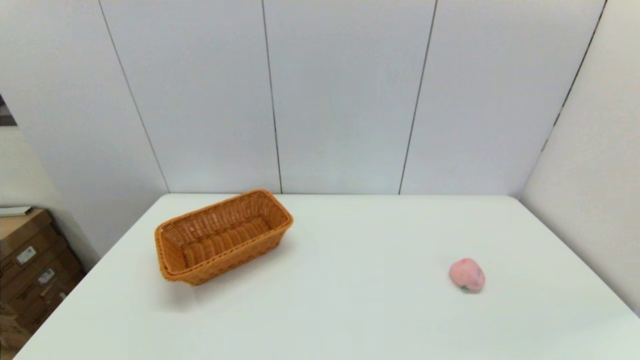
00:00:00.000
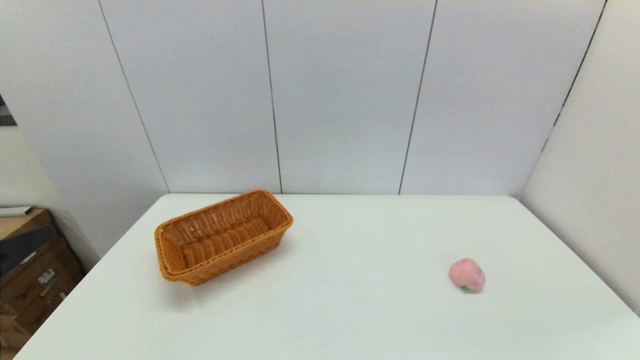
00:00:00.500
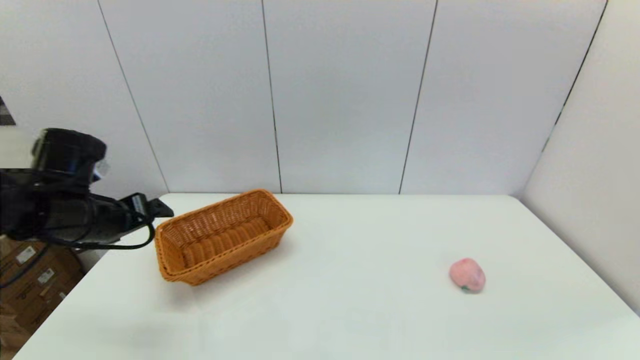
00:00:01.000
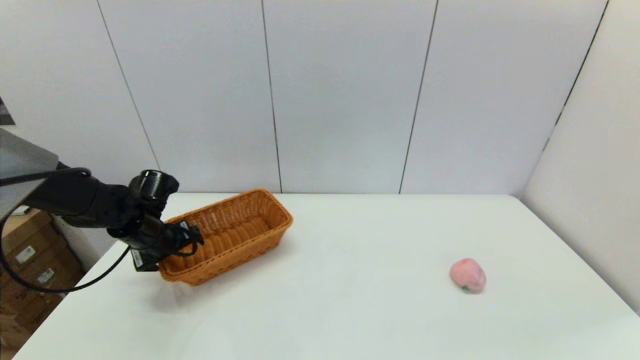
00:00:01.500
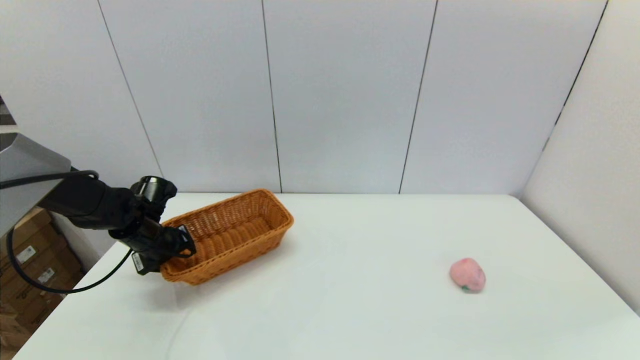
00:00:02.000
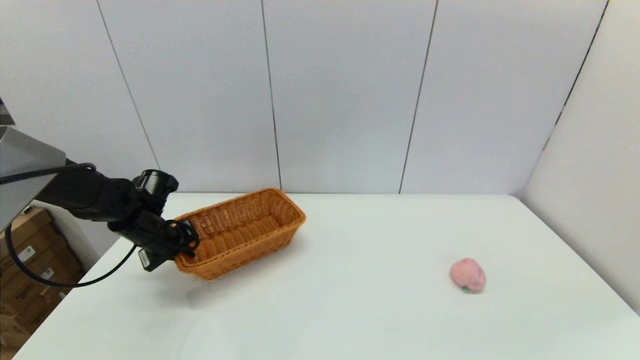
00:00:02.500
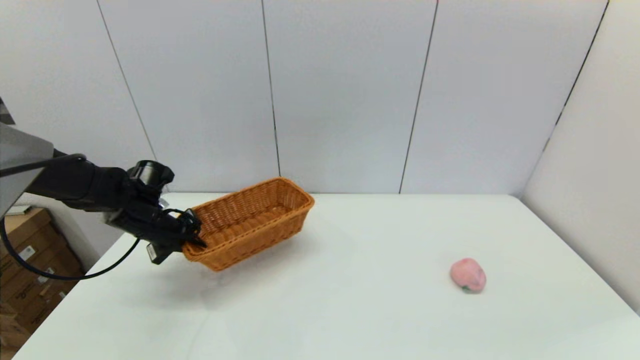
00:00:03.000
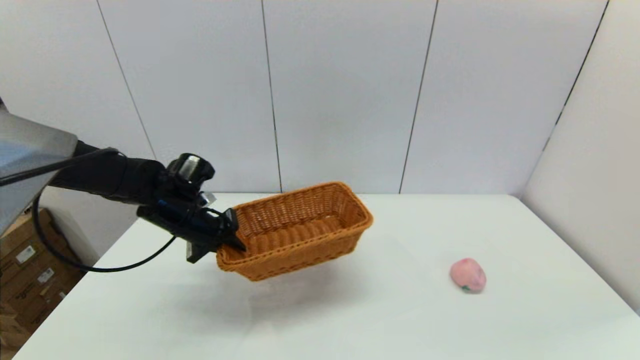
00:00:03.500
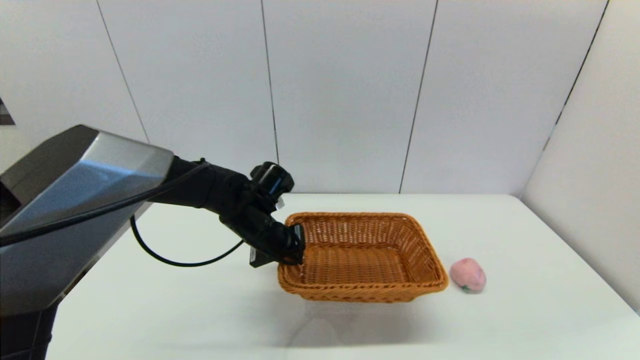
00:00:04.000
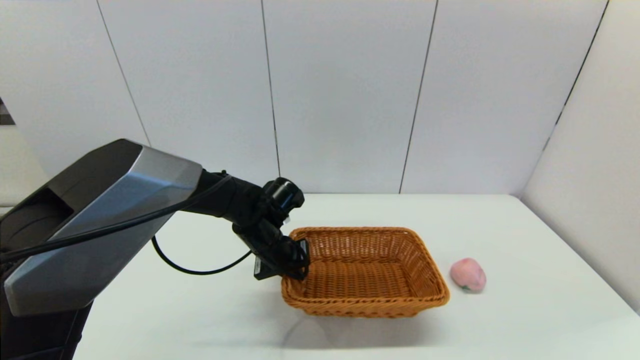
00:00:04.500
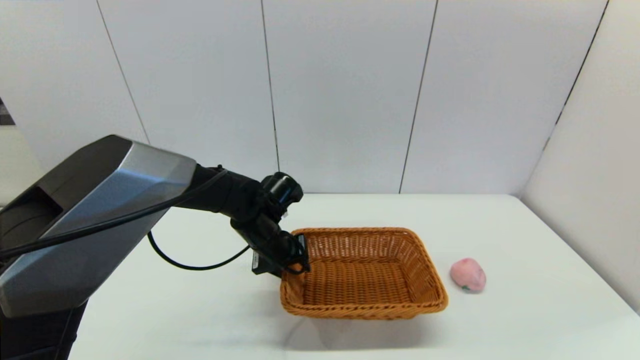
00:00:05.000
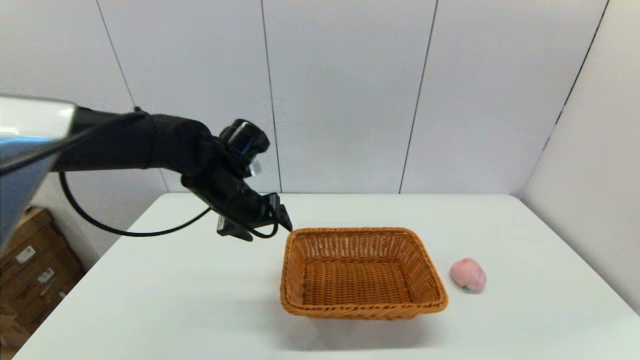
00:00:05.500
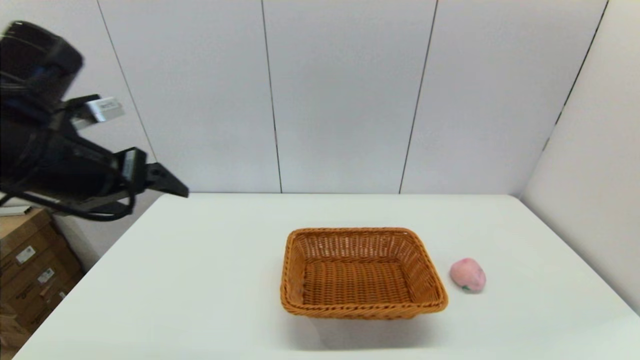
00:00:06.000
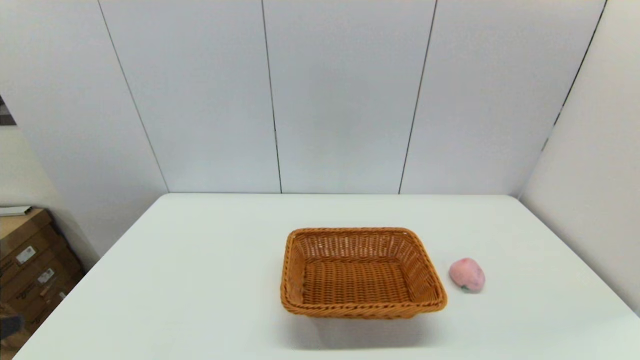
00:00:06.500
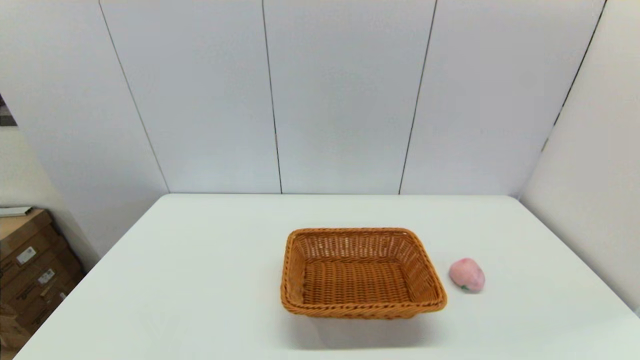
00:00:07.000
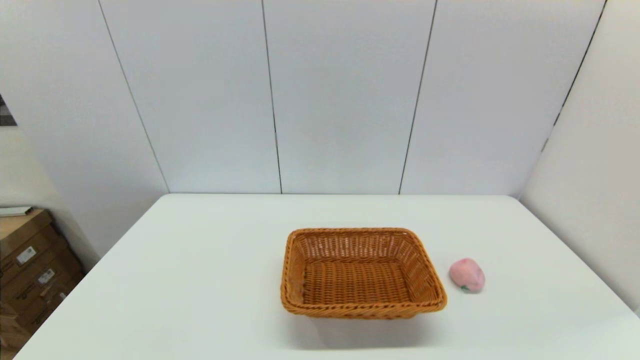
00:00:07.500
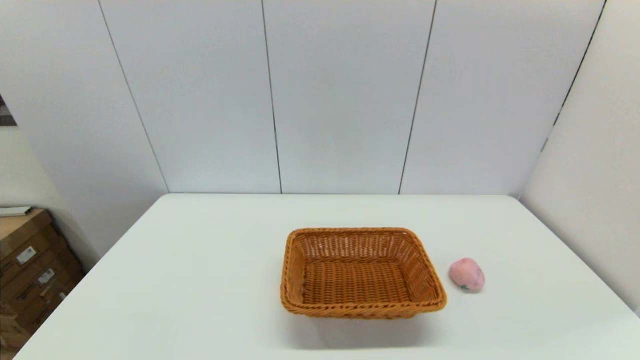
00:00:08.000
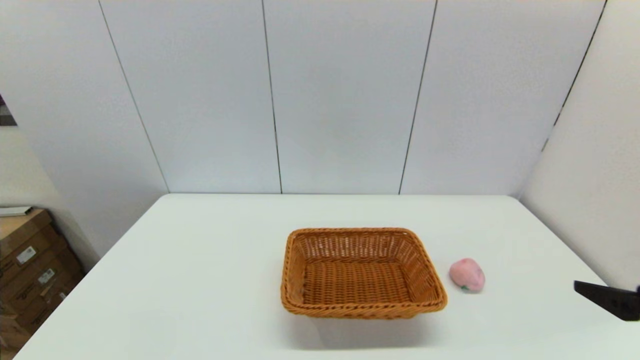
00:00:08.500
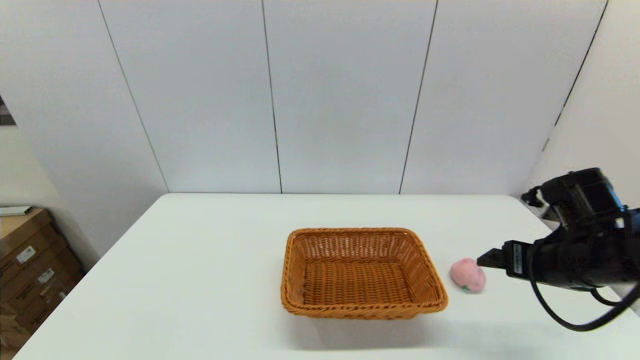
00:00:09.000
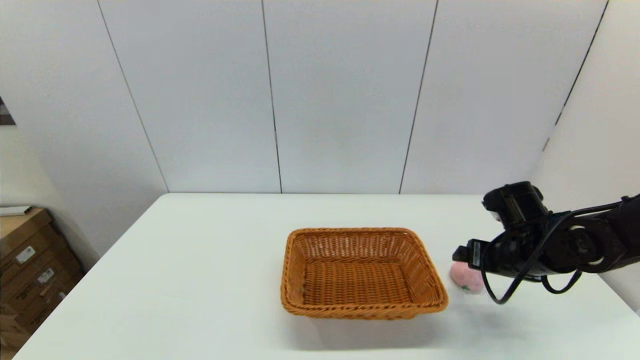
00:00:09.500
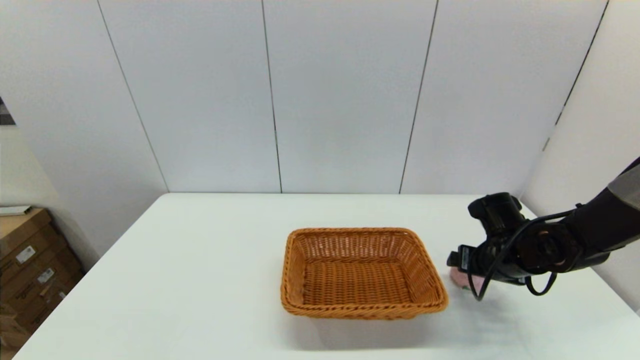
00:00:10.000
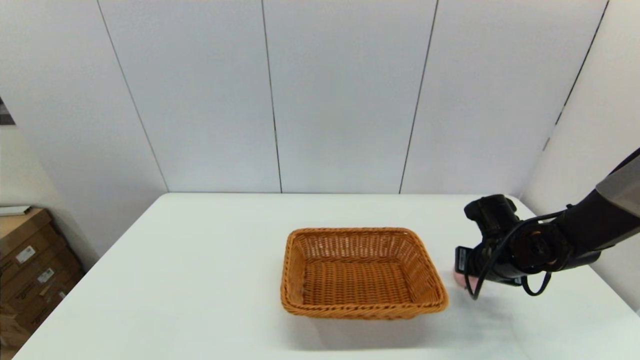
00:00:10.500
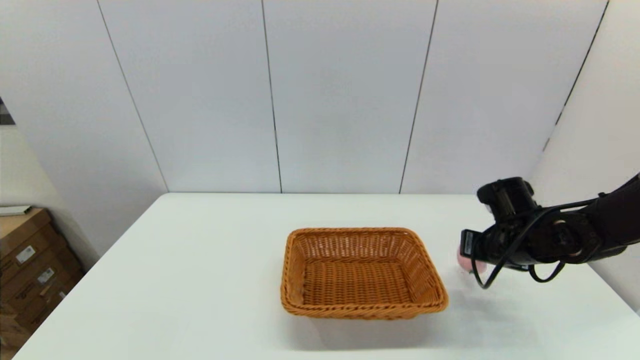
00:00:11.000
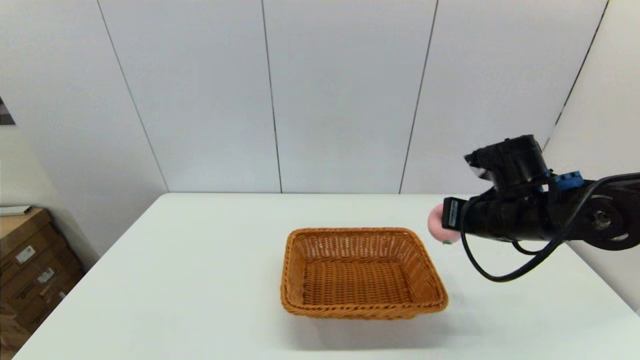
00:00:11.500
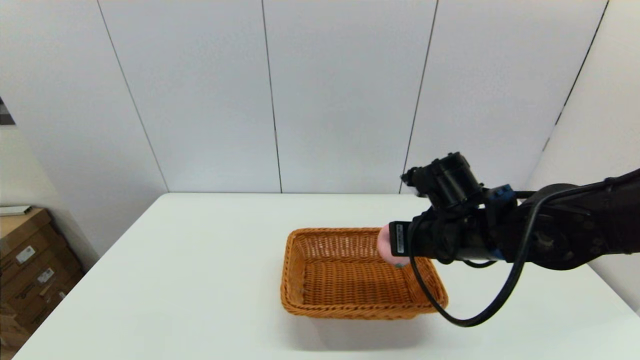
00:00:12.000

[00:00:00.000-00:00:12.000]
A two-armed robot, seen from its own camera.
Step, 00:00:00.000 to 00:00:02.500: Grasp the light basket with the left gripper.
Step, 00:00:03.000 to 00:00:05.000: Place the light basket on the middle of the table with the left gripper.
Step, 00:00:05.500 to 00:00:10.500: Grasp the peach with the right gripper.
00:00:00.000 to 00:00:02.000: The left gripper heads forward, covering some 40 cm, and closes up.
00:00:02.000 to 00:00:04.000: The left gripper shifts about 20 cm to the right, and closes its fingers.
00:00:04.000 to 00:00:06.000: The left gripper travels upward, to the left and backward by some 30 cm, and opens up.
00:00:06.000 to 00:00:08.000: The left gripper shifts some 30 cm backward and downward.
00:00:08.000 to 00:00:10.000: The right gripper moves forward, roughly 35 cm.
00:00:10.000 to 00:00:12.000: The right gripper is displaced to the left and upward by about 15 cm, and closes up.

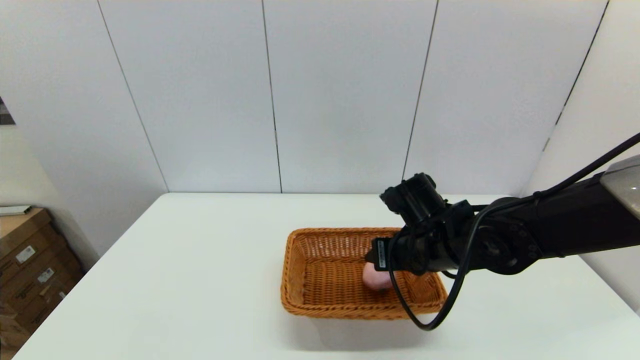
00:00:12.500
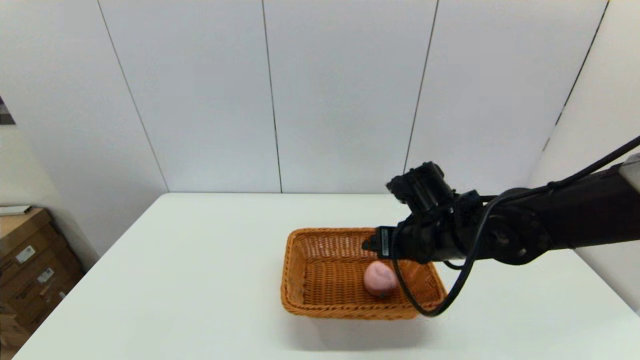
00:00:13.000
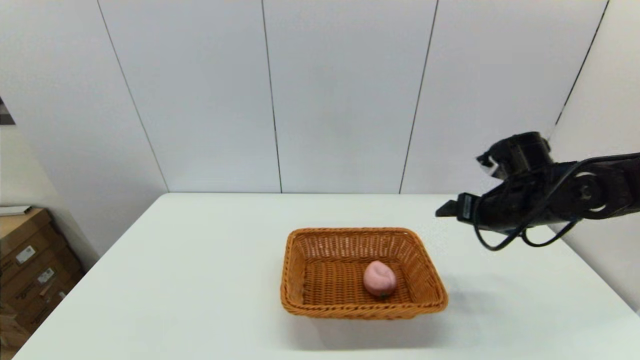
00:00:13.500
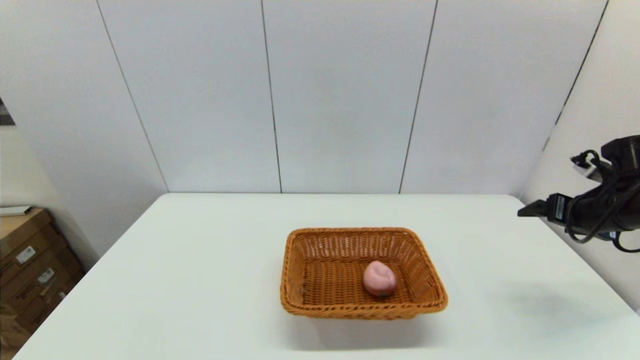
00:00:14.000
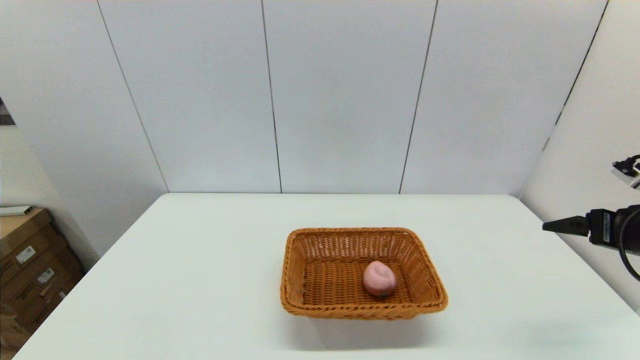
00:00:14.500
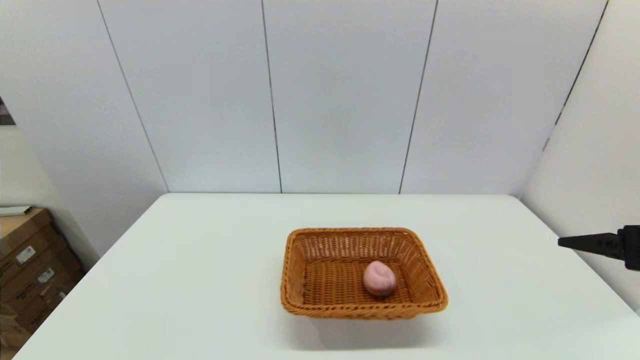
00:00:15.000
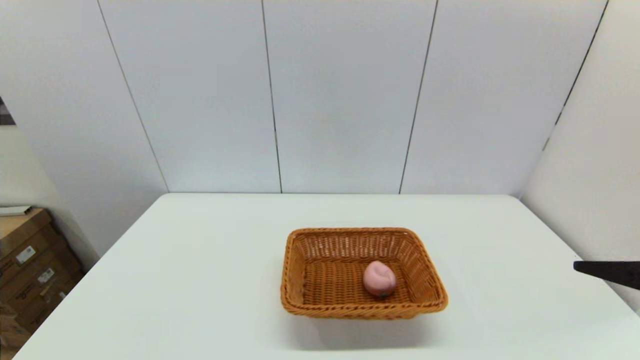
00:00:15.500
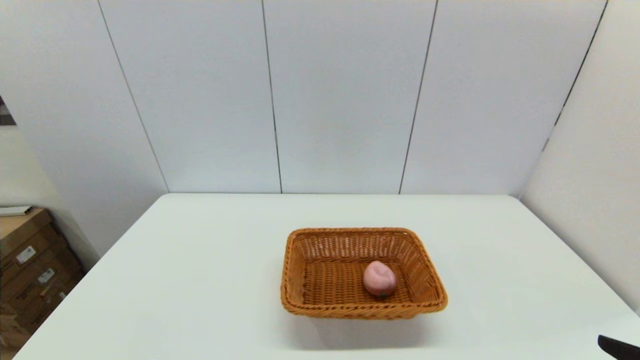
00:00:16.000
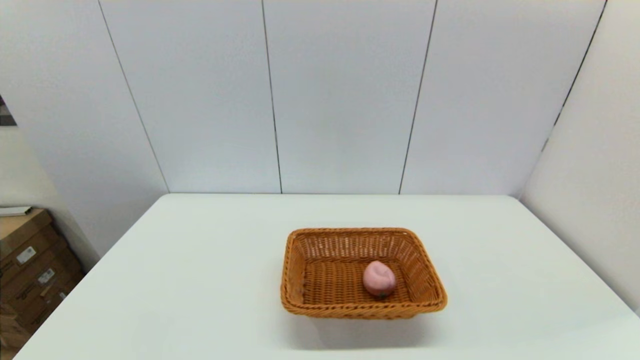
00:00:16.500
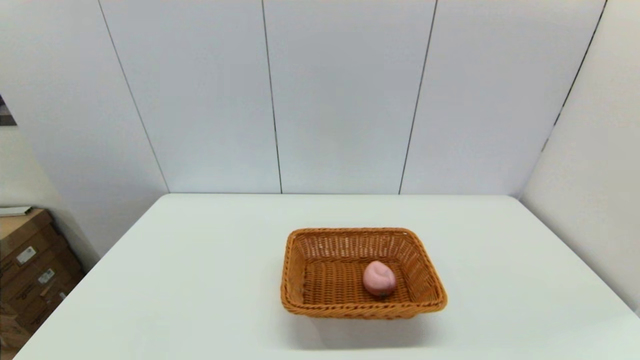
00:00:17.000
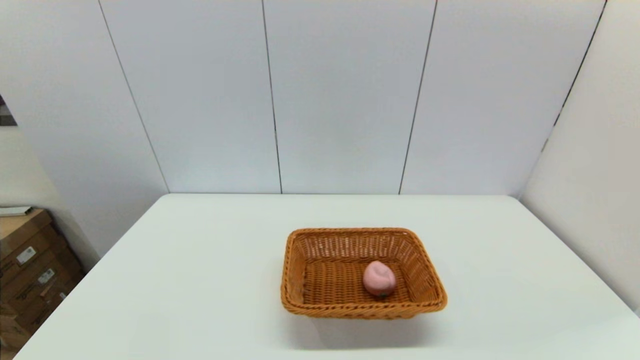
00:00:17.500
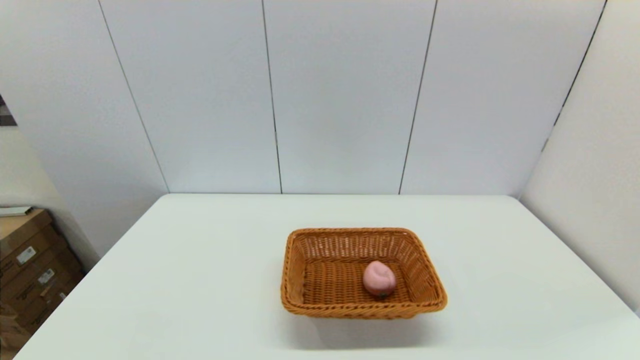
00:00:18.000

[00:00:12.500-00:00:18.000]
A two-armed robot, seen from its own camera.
00:00:12.500 to 00:00:14.500: The right gripper moves to the right, about 30 cm, and opens.
00:00:14.500 to 00:00:16.000: The right gripper is displaced backward and to the left by about 20 cm.

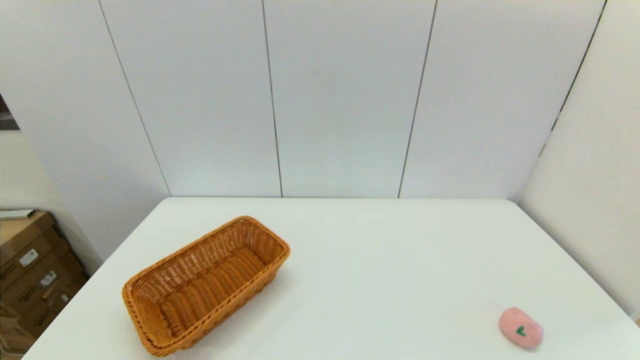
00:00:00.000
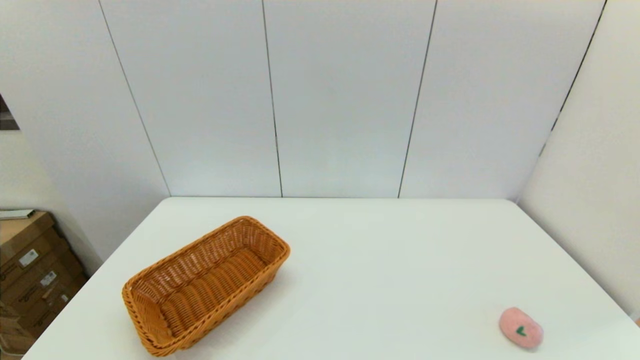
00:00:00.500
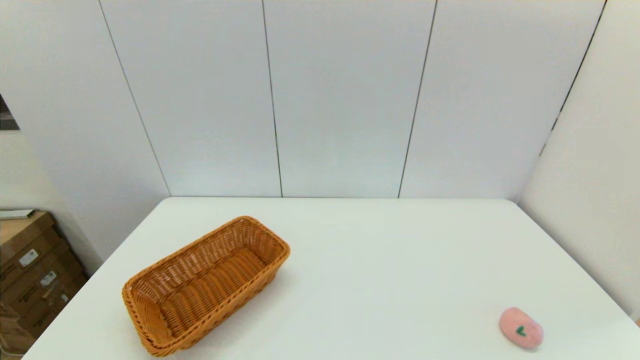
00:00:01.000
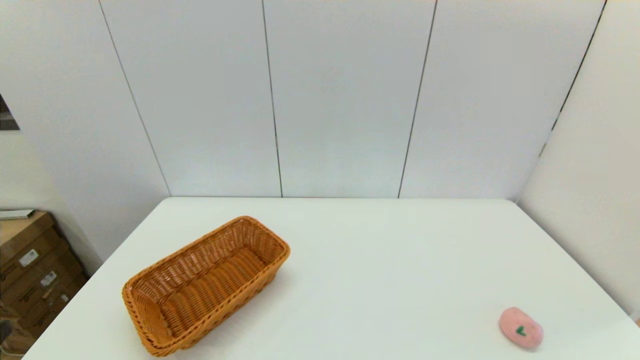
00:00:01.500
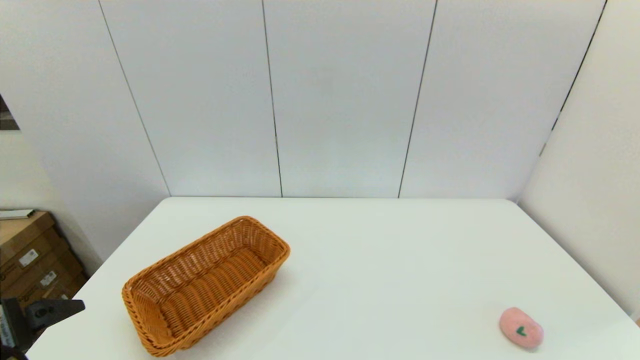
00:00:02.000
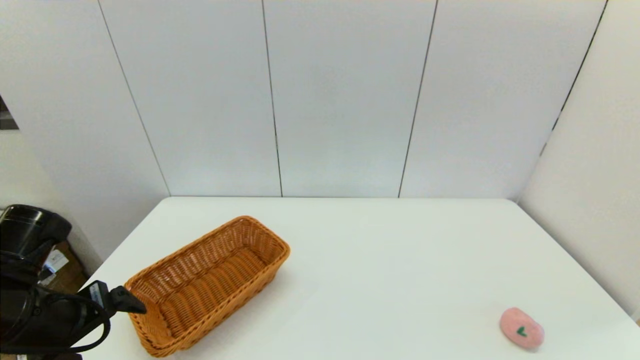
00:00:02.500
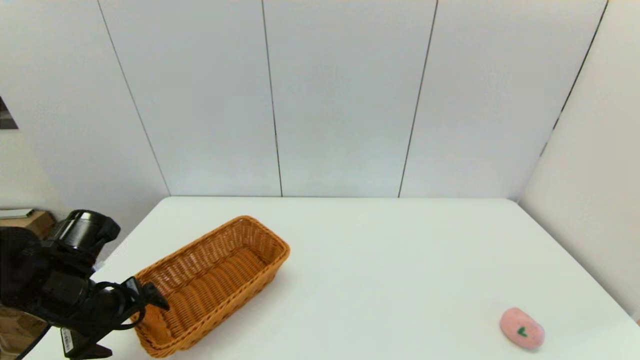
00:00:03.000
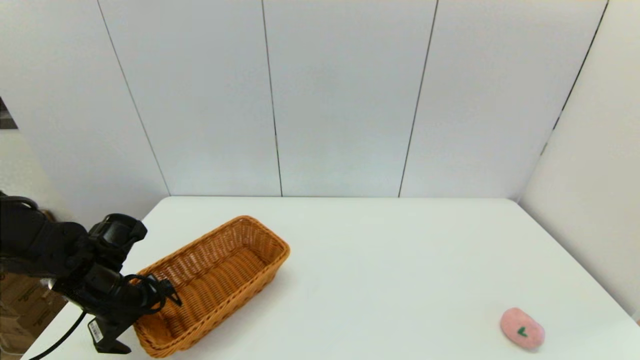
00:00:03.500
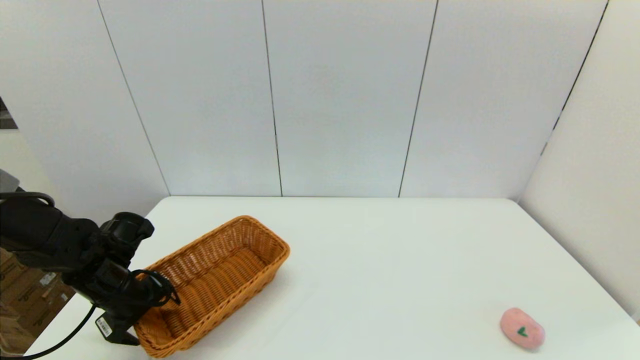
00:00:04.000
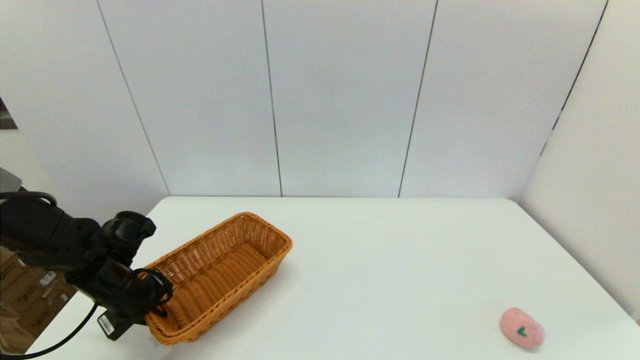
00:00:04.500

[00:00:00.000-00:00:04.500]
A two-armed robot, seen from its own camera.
00:00:00.000 to 00:00:02.000: The left gripper travels forward and upward by some 15 cm.
00:00:02.000 to 00:00:04.500: The left gripper shifts approximately 20 cm forward and downward, and closes up.
